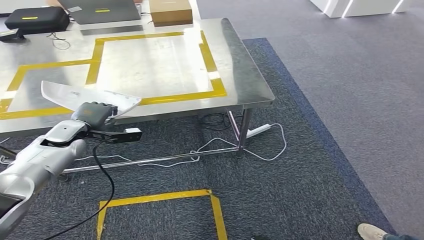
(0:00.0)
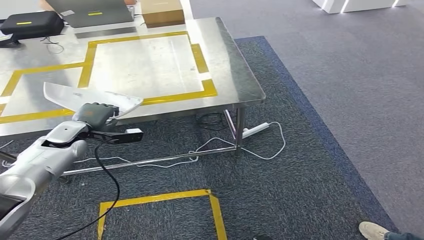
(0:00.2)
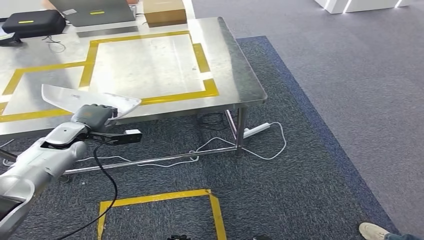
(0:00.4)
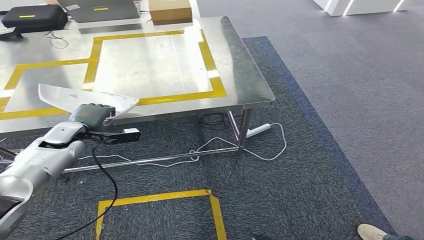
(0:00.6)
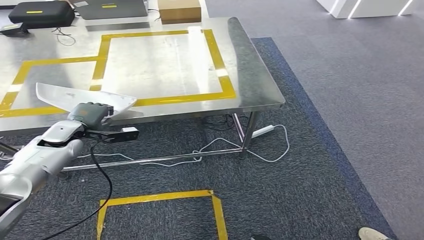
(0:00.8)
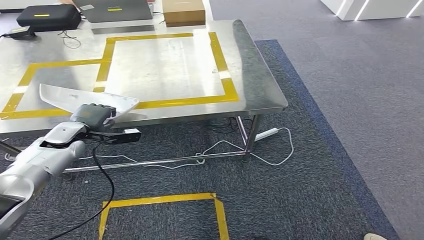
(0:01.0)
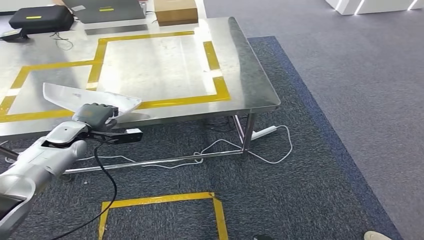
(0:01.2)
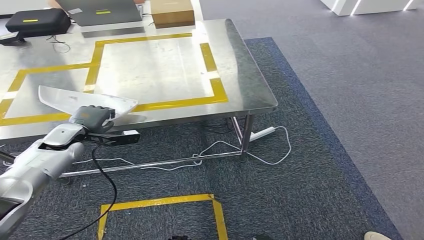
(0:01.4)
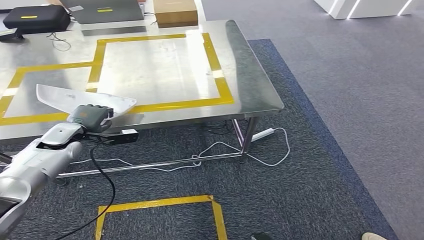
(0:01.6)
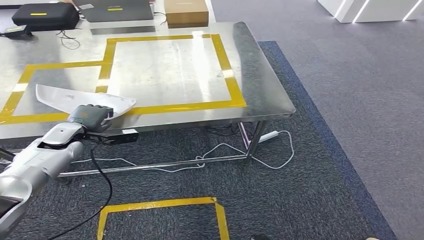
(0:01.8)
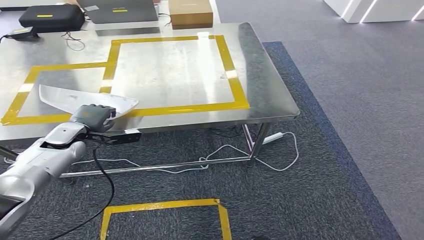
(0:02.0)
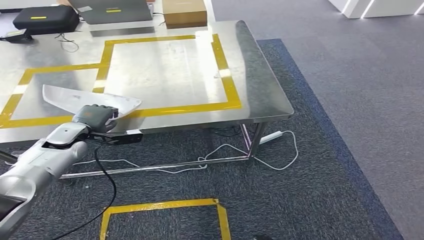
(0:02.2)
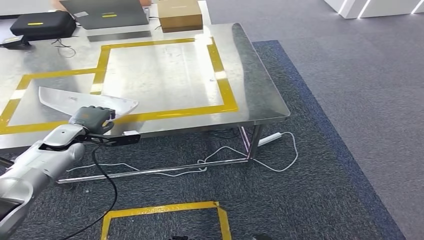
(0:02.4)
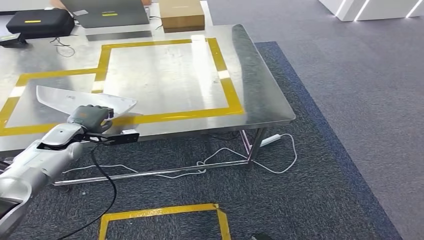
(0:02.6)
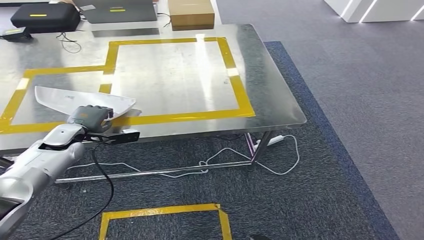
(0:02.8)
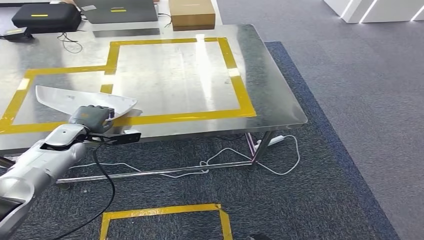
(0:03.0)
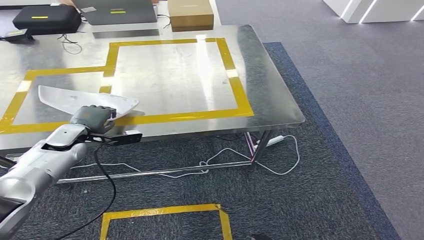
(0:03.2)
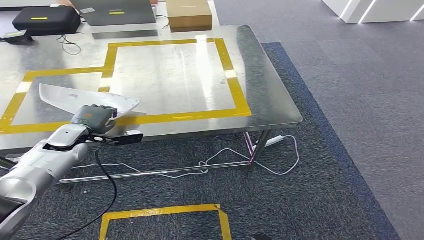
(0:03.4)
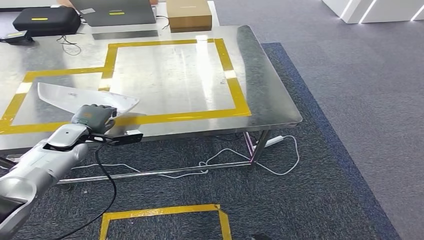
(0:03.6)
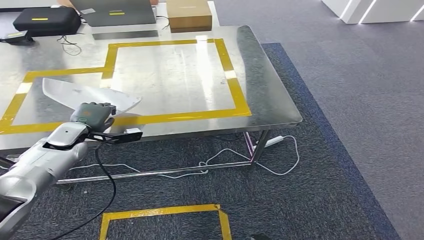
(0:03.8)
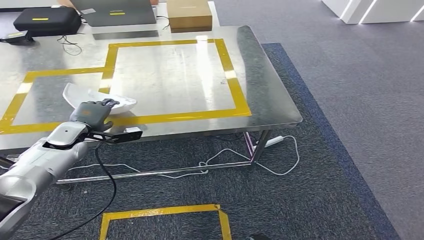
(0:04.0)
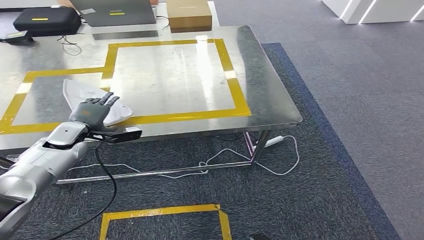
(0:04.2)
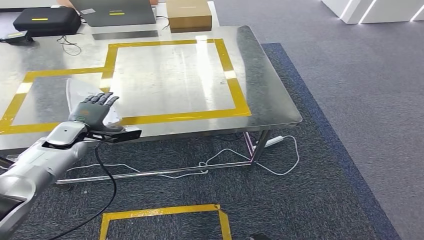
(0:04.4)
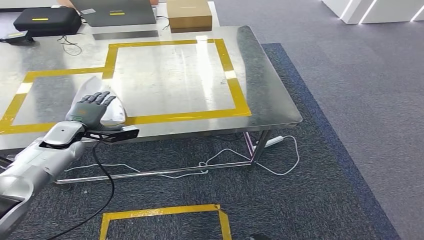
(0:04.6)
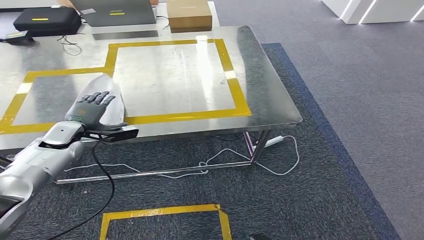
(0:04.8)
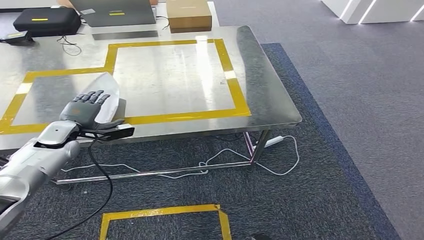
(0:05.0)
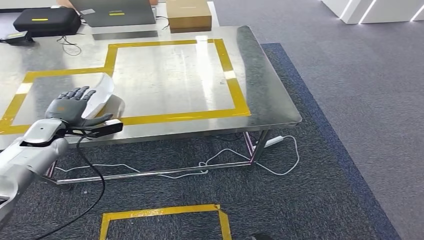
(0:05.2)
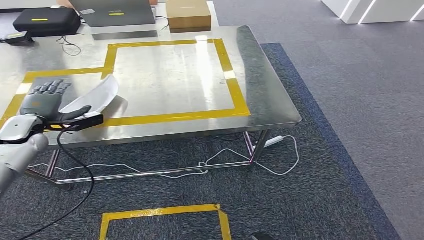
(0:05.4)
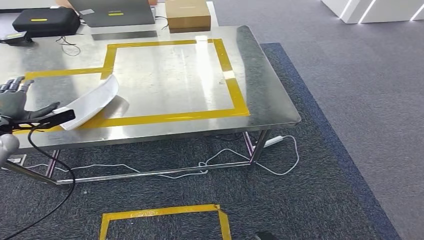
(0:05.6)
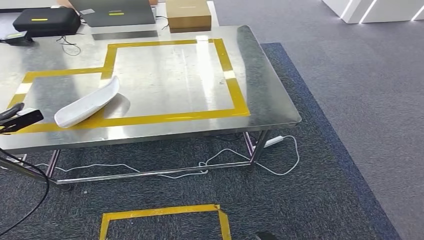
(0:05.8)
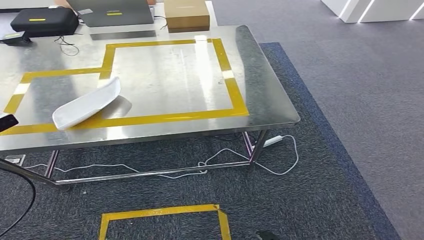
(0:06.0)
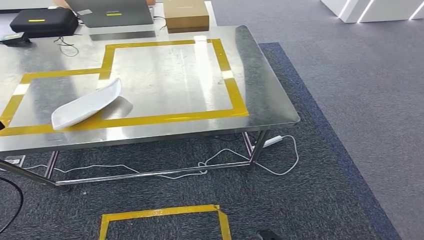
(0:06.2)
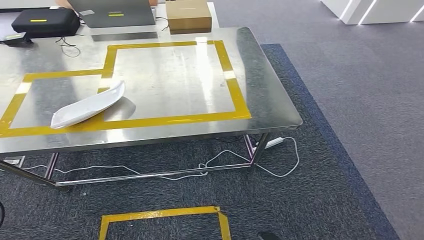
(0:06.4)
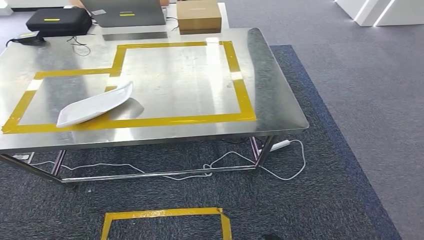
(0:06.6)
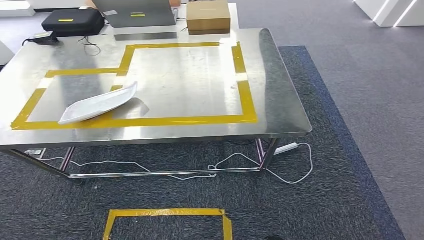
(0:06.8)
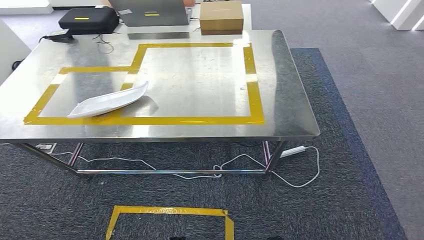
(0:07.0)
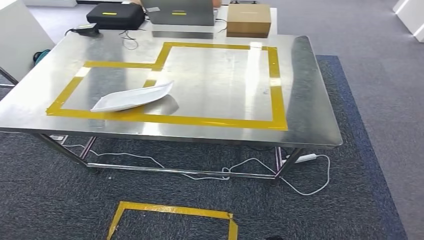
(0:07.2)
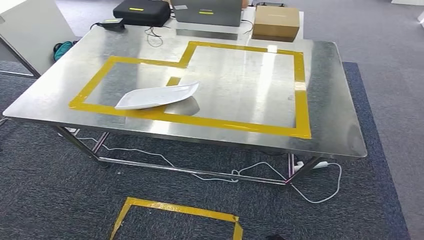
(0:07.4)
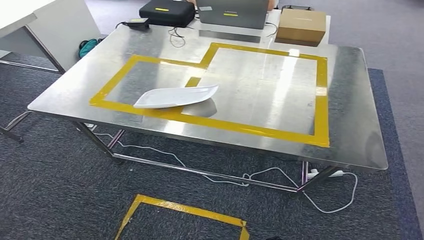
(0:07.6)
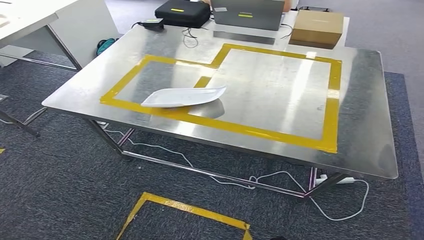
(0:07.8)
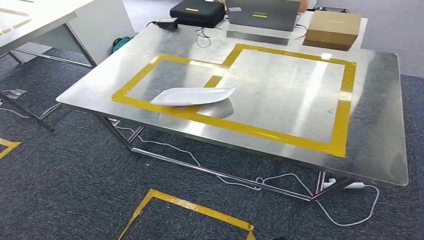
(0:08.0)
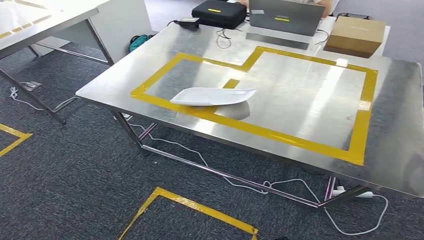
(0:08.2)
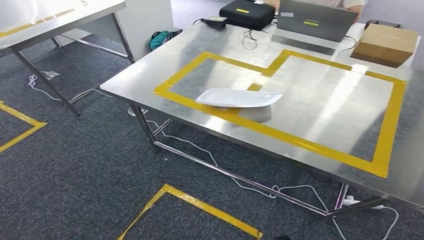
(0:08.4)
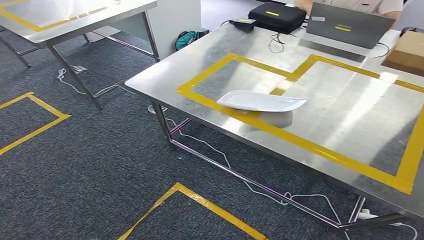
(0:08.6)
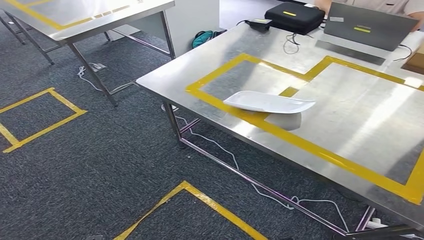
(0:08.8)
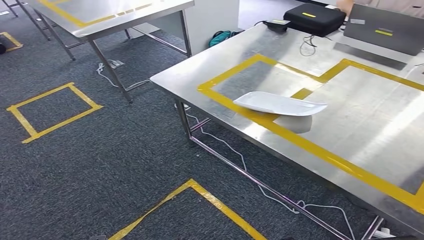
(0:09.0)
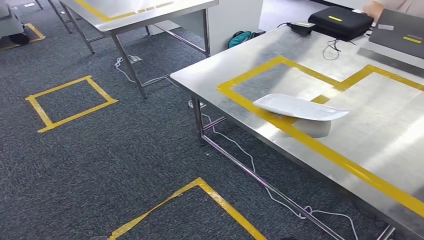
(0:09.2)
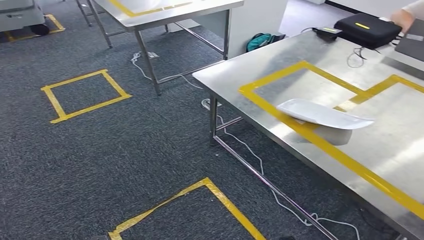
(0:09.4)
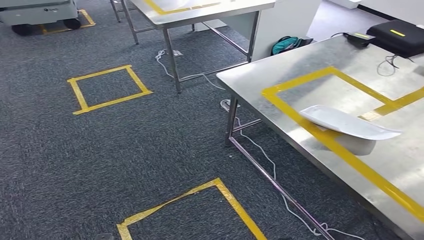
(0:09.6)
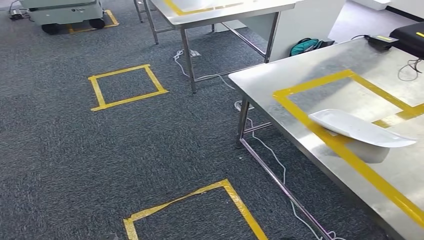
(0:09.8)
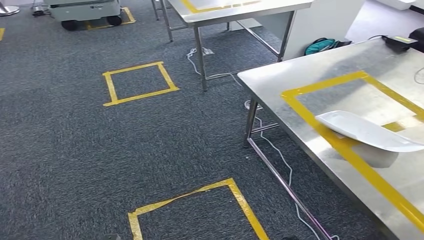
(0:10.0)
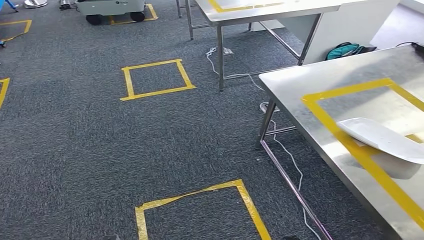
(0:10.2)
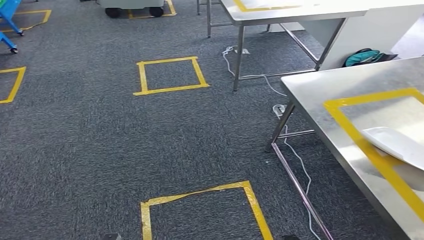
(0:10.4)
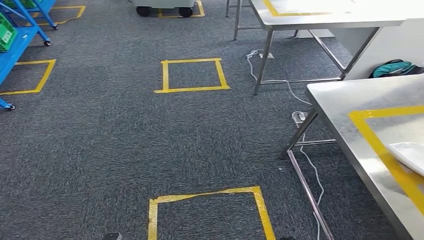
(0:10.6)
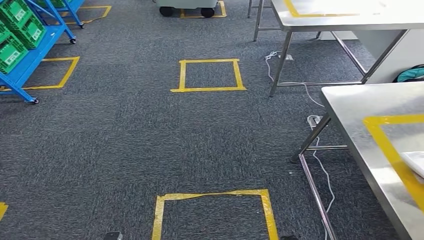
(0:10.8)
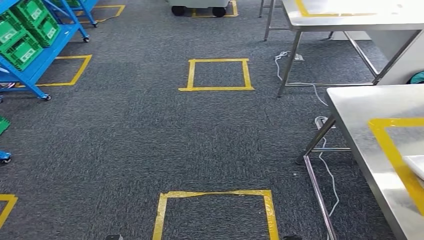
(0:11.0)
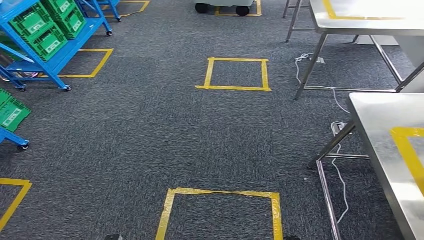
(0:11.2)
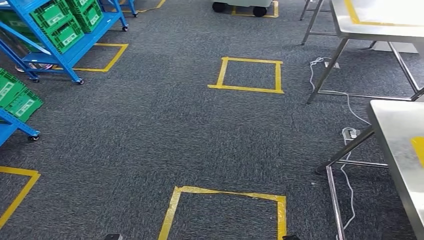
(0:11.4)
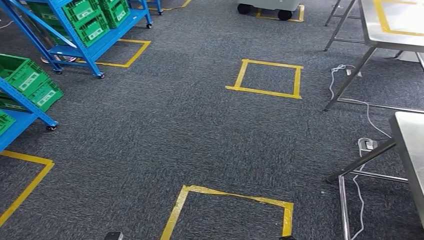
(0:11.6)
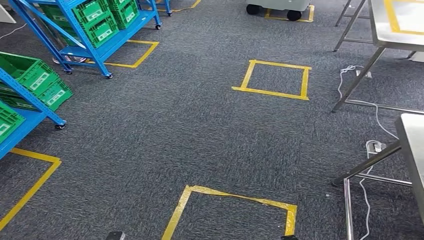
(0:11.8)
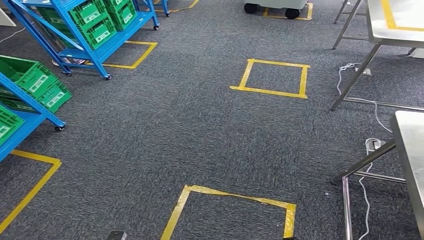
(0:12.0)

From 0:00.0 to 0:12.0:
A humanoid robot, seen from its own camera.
Step, from 0:00.0 to 0:08.0: Insert the small component into the corresponding slot on the workbench.
From 0:00.0 to 0:01.6: Both hands stay about where they are.
From 0:03.0 to 0:04.4: The hands make only small movements.
From 0:04.4 to 0:06.0: The left hand shifts approximately 25 cm to the left.

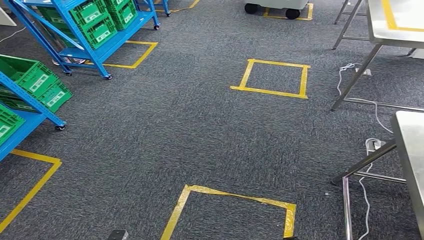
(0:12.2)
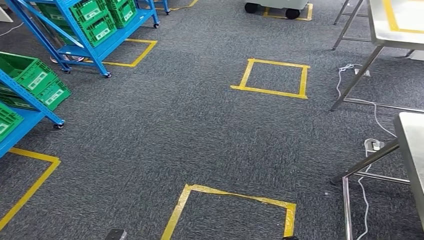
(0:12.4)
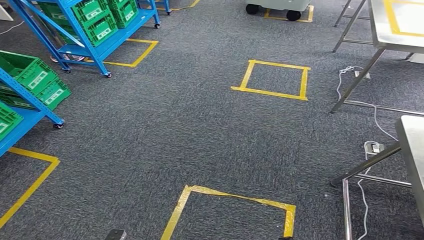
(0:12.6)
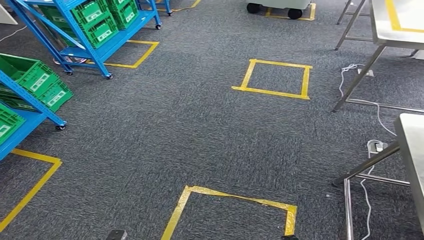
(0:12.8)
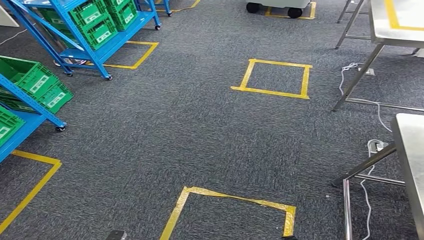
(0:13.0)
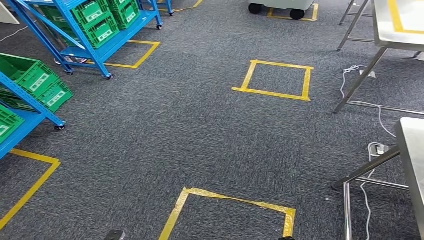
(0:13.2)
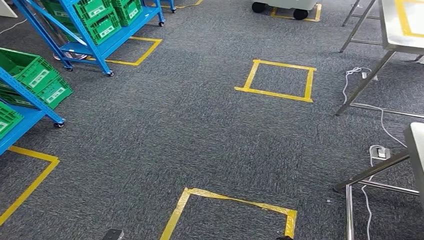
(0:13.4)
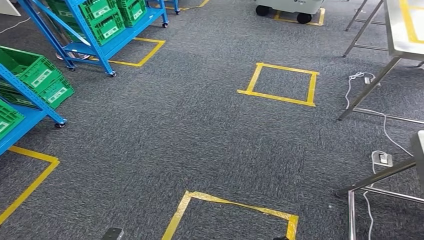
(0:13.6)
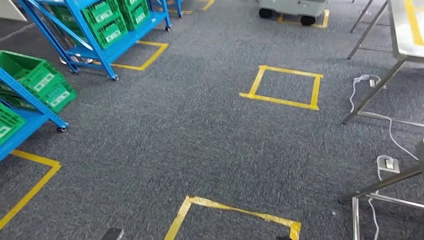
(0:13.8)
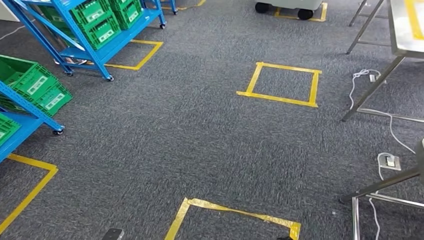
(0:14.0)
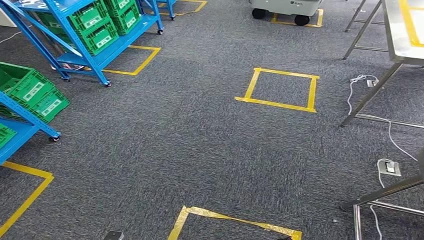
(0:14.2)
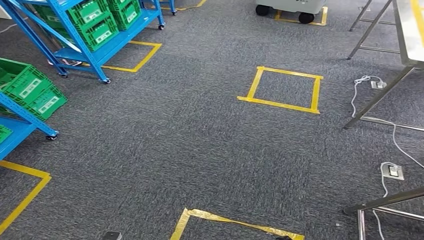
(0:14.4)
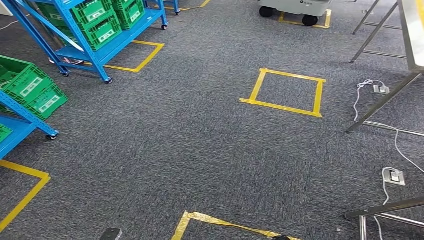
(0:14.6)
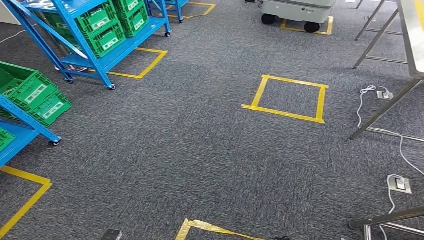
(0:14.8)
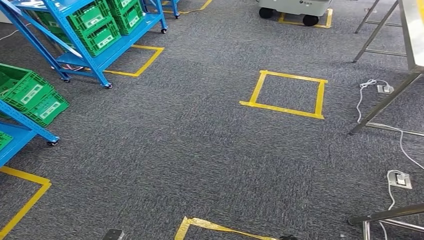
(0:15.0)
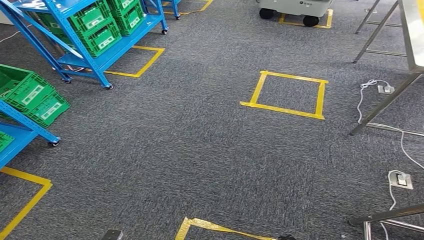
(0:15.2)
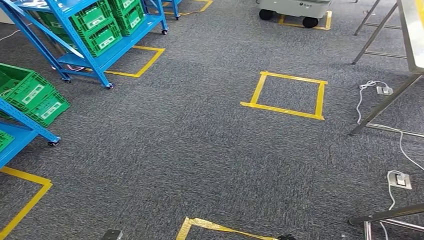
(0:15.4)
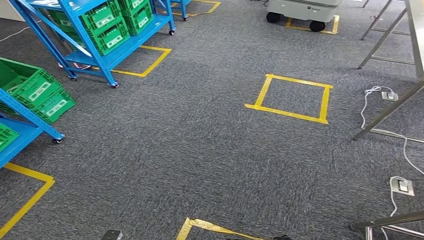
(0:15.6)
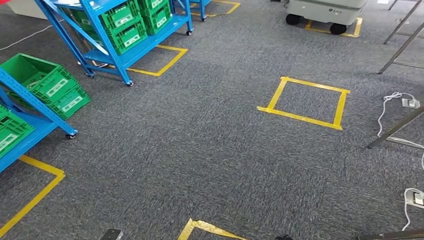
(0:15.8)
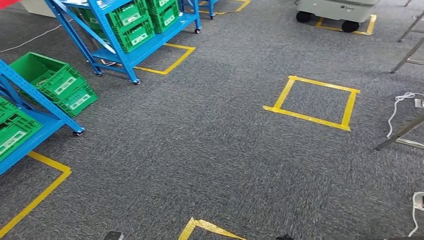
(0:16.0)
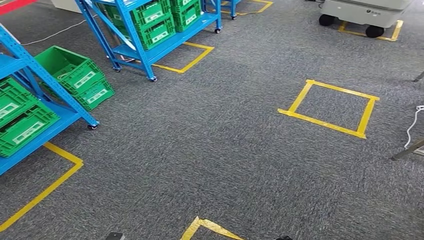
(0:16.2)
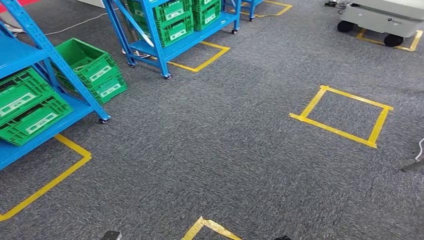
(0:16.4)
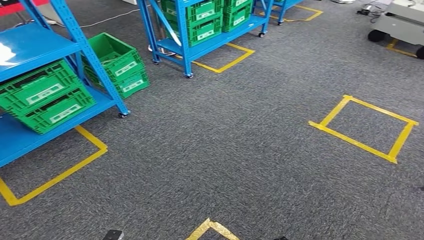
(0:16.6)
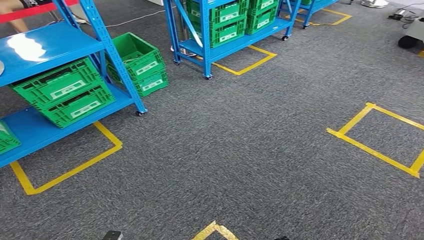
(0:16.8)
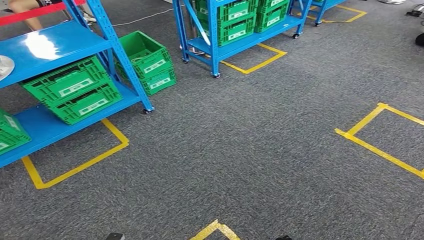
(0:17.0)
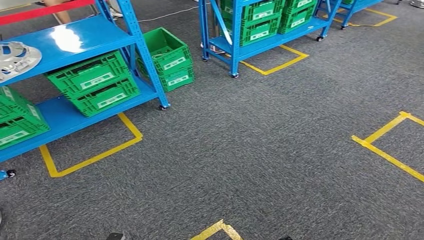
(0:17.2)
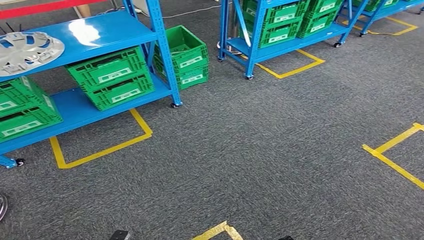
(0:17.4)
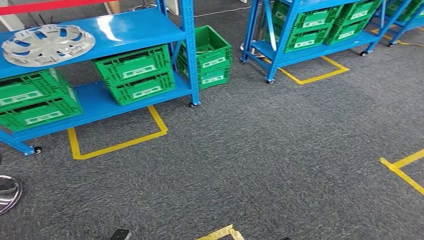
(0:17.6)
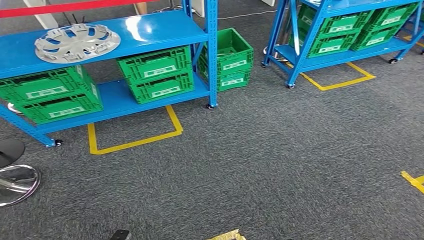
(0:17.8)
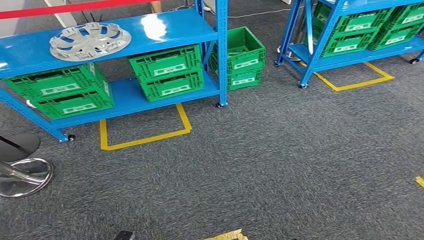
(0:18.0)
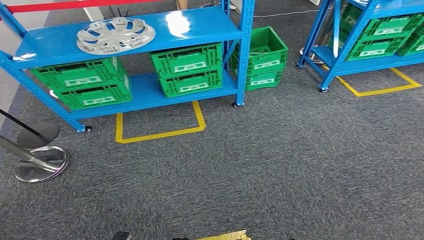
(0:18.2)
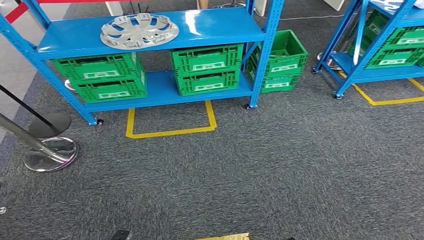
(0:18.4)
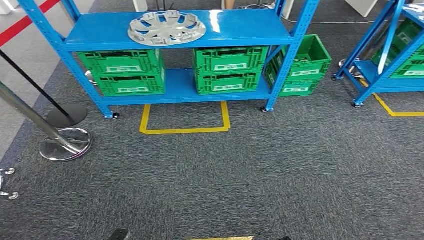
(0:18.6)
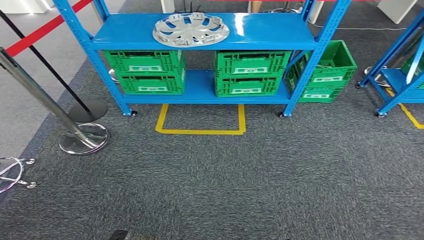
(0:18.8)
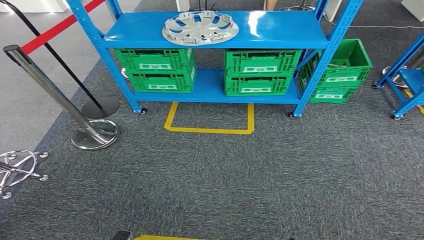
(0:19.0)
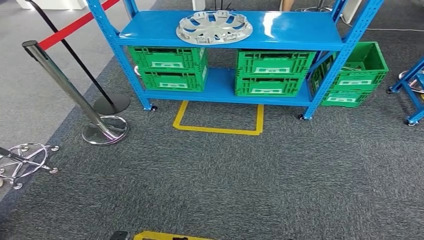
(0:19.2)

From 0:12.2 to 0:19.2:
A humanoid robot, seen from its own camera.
Step, from 0:12.2 to 0:19.2: Return to the initial position at the workbench.
